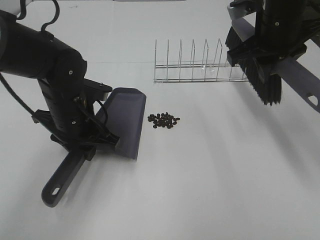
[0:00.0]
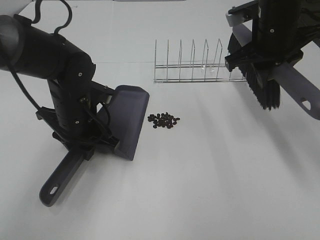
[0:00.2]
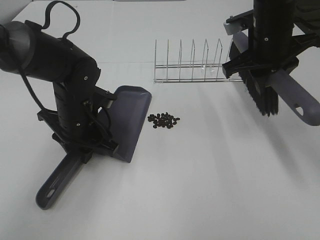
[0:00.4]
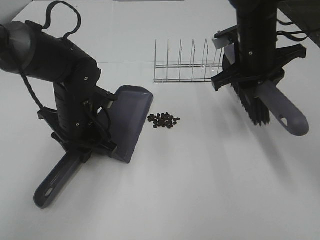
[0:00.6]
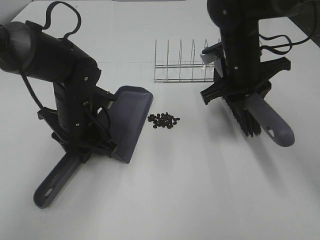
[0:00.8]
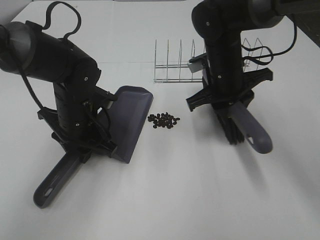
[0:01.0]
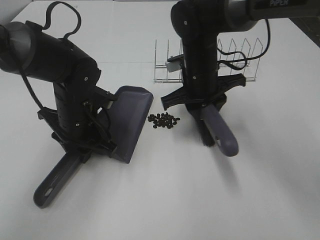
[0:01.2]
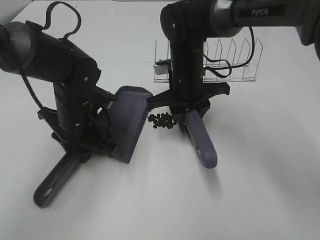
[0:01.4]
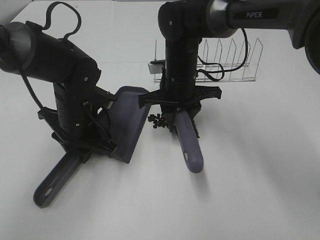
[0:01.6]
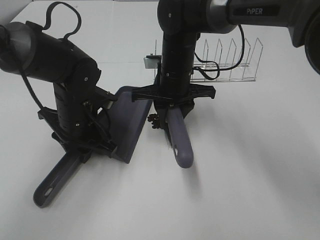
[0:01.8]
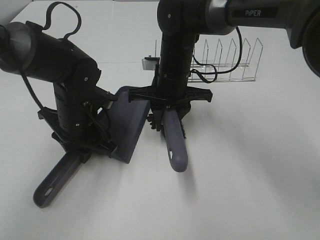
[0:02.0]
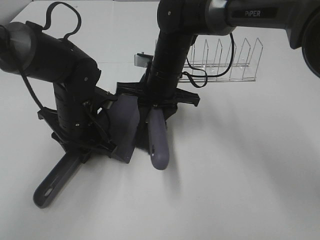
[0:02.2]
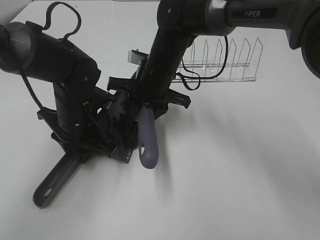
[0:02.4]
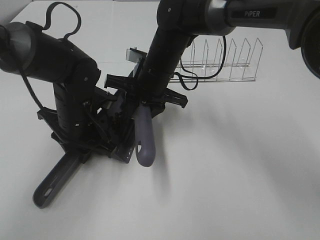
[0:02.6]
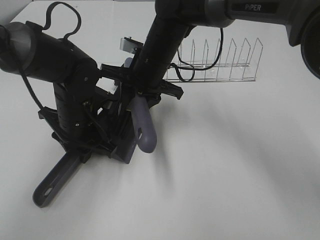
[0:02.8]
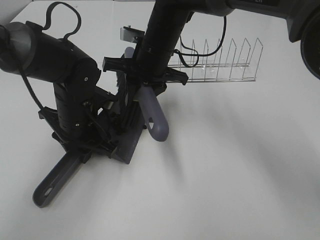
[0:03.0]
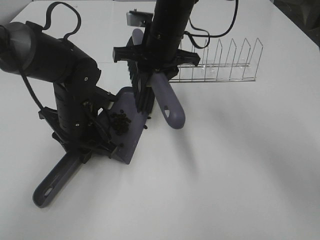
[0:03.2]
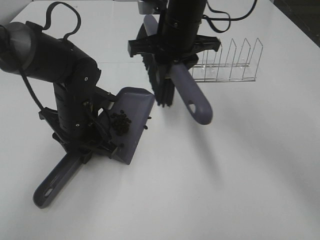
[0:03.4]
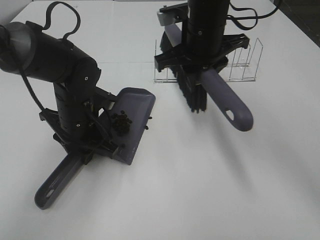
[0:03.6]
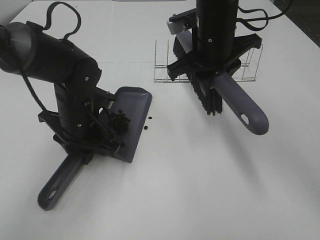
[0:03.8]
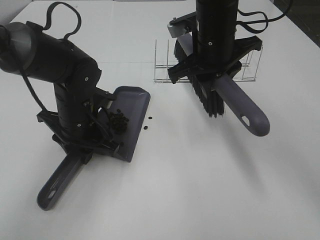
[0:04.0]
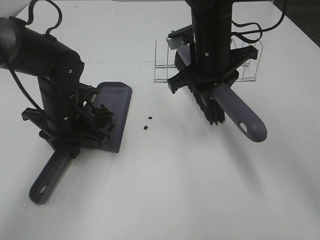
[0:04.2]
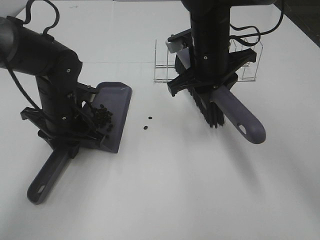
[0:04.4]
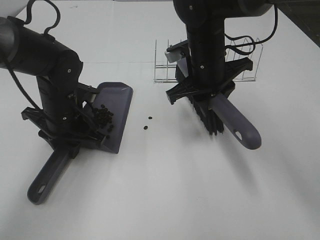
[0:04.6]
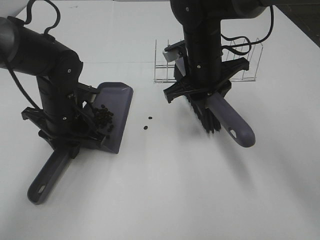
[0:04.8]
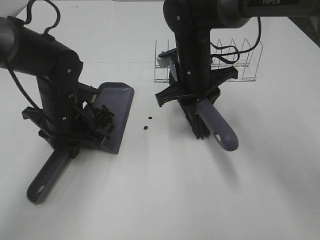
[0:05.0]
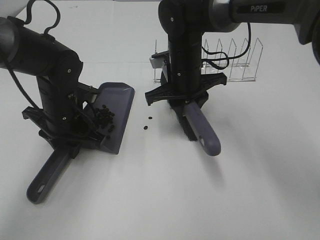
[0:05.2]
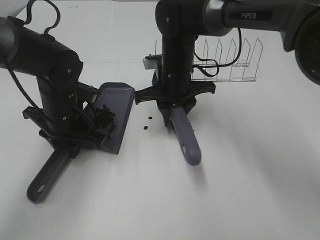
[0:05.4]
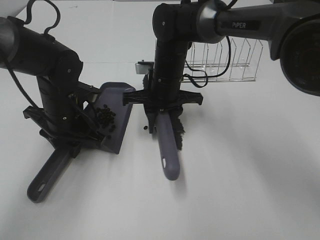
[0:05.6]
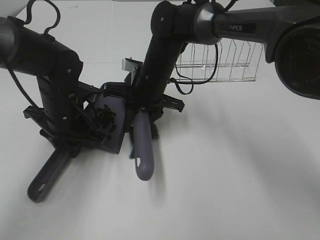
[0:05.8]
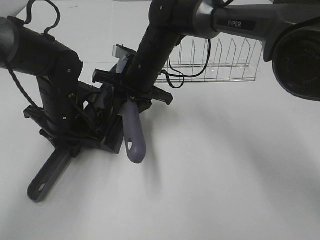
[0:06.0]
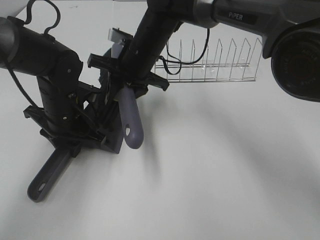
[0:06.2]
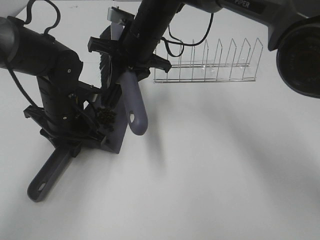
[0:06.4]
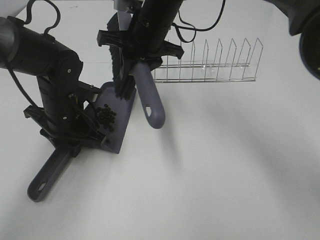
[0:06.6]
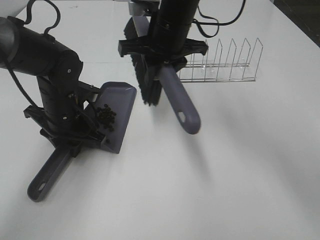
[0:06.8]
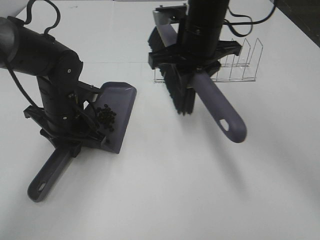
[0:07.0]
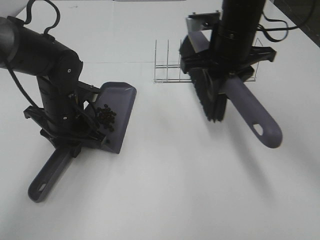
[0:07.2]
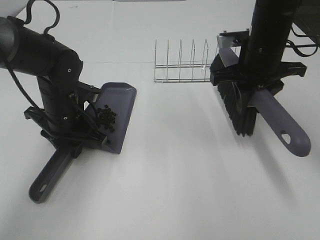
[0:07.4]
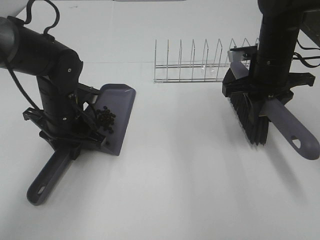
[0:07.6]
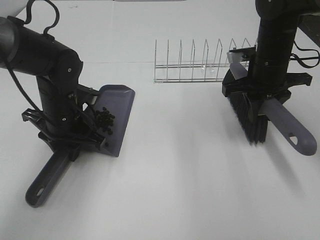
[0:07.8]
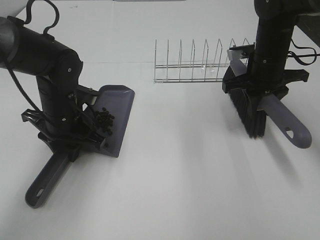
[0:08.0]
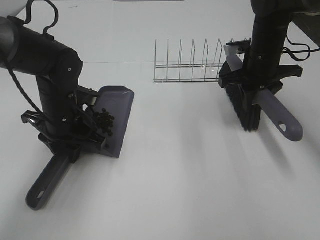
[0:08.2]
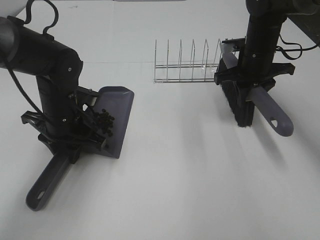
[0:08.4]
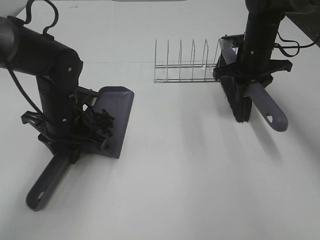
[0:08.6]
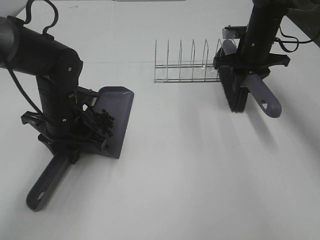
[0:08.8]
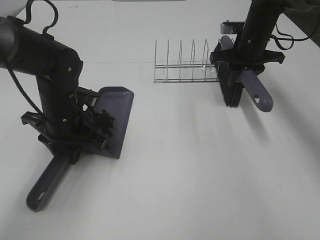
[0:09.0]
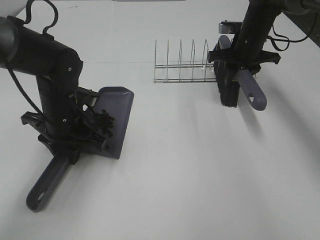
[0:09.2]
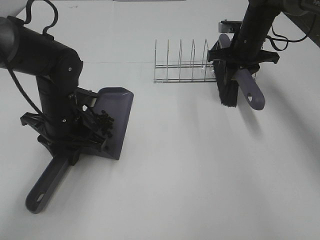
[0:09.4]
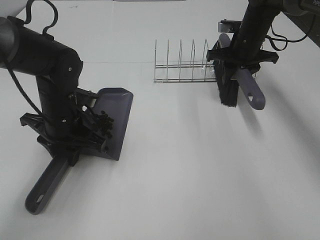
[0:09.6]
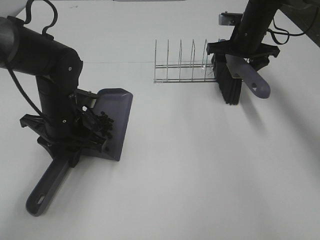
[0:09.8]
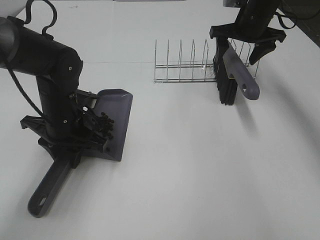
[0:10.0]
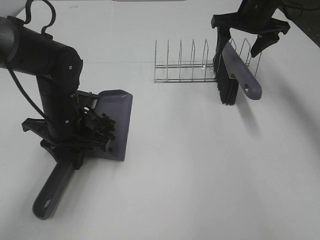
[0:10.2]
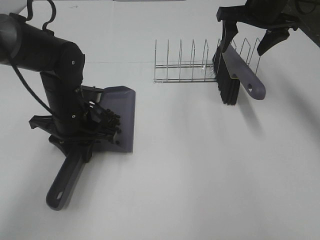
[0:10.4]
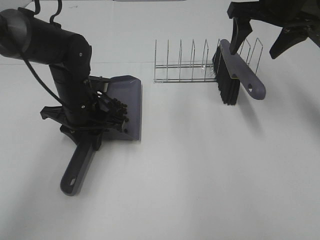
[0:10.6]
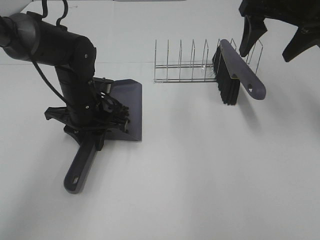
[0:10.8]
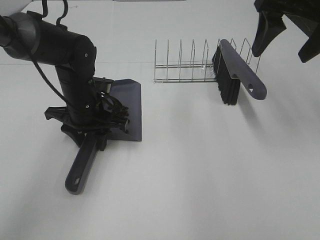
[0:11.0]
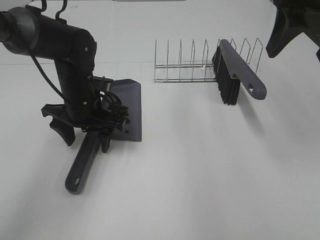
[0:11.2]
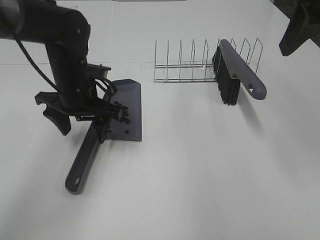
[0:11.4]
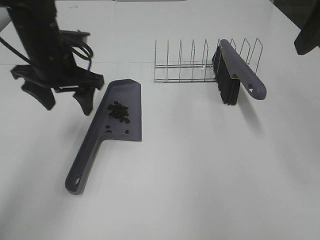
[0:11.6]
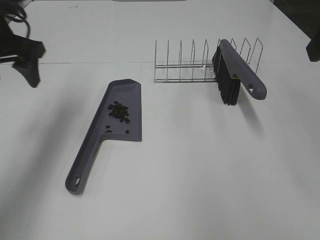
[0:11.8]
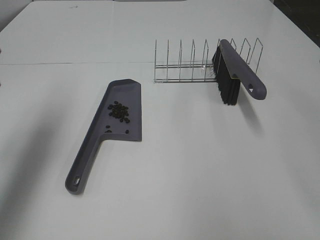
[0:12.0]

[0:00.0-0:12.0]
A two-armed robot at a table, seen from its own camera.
Task of the whole recording: Sweep Coffee Bean.
Step, 0:00.0 to 0:05.8: Right hand:sweep the coffee beans into the dustpan.
Step, 0:06.0 to 0:09.8: Right hand:place the broom on the rack.
Step, 0:10.0 to 0:11.0: Left hand:place the dustpan on the table.
0:00.0 to 0:01.6: The right gripper heads to the left and downward, covering some 20 cm.
0:01.6 to 0:03.0: The right gripper moves about 5 cm.
0:03.0 to 0:04.4: The right gripper heads to the right, covering some 10 cm.
0:04.4 to 0:06.0: The right gripper goes approximately 10 cm to the left.
0:06.0 to 0:07.6: The right gripper moves to the right, some 20 cm.
0:07.6 to 0:09.0: The right gripper travels forward by some 10 cm.
0:09.0 to 0:10.4: The right gripper moves upward, about 10 cm, and opens.
0:10.4 to 0:12.0: The right gripper heads backward and upward, covering about 30 cm; the left gripper travels upward and to the left by roughly 25 cm, and opens.

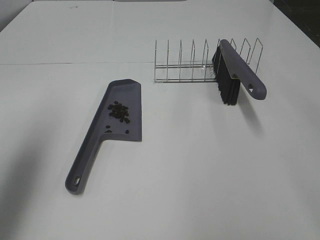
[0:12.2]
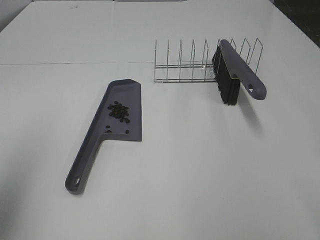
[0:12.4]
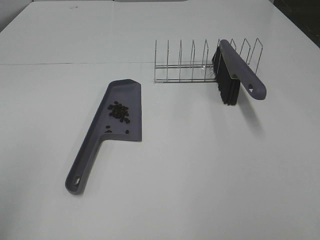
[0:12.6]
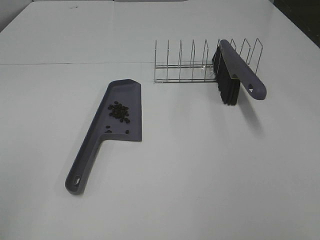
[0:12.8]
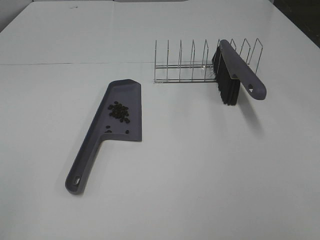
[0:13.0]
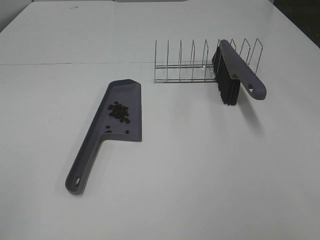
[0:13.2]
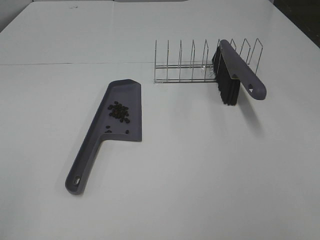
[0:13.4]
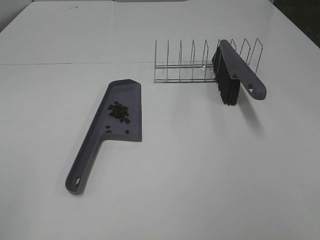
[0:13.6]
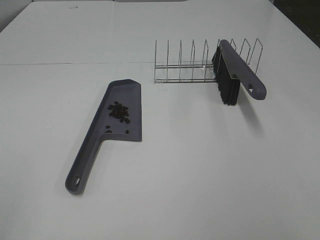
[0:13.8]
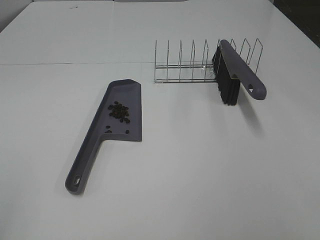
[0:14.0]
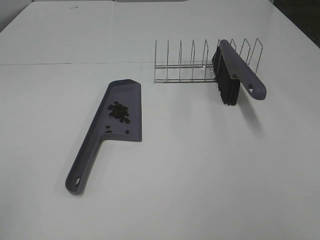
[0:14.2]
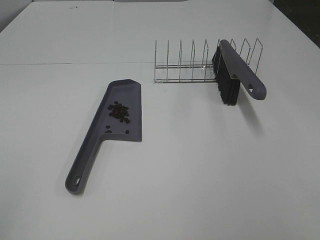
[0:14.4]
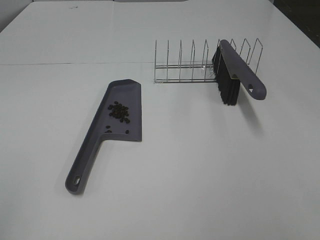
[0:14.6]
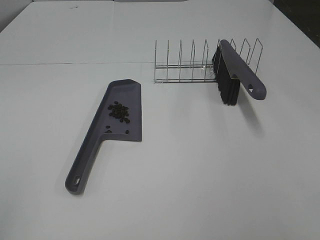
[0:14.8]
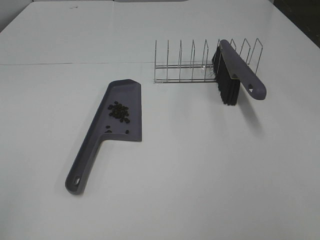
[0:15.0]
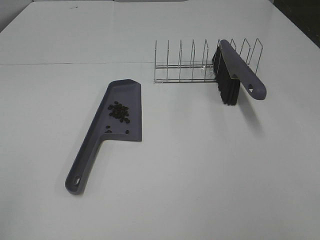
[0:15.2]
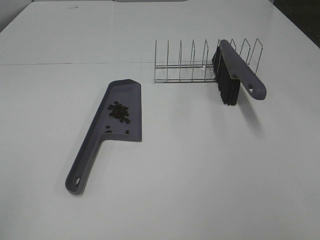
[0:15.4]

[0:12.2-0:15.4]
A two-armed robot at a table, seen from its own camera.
Task of the whole recording: Sweep Coffee Bean.
0:12.2 to 0:13.8: The left gripper is displaced backward by about 20 cm.
